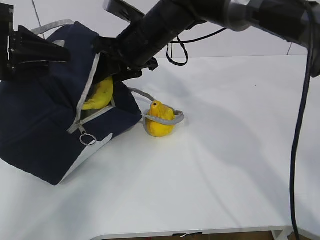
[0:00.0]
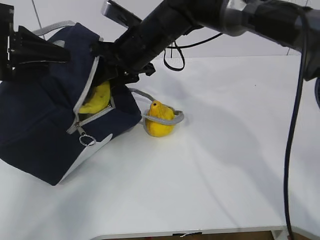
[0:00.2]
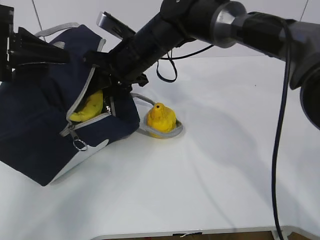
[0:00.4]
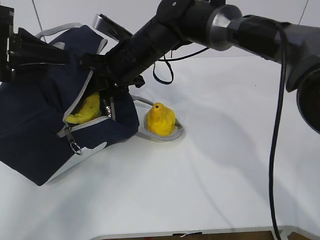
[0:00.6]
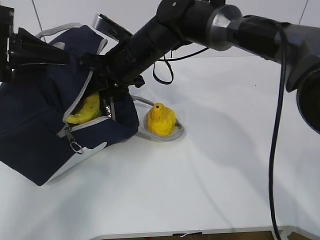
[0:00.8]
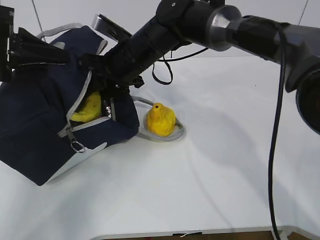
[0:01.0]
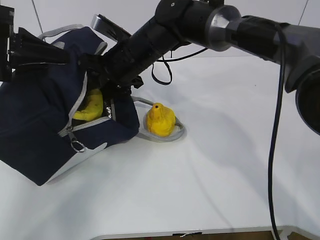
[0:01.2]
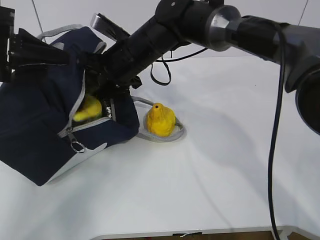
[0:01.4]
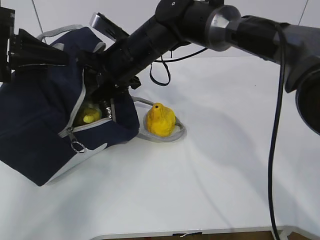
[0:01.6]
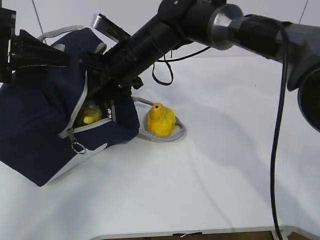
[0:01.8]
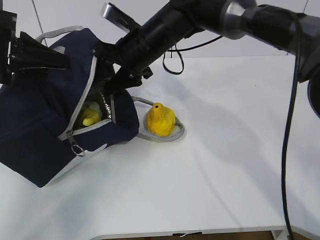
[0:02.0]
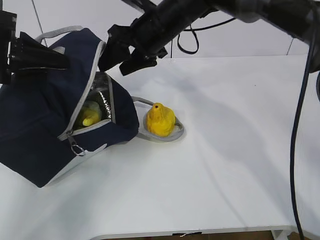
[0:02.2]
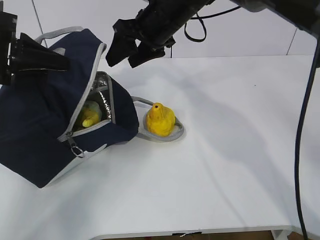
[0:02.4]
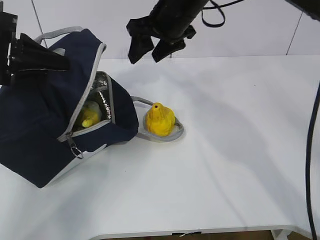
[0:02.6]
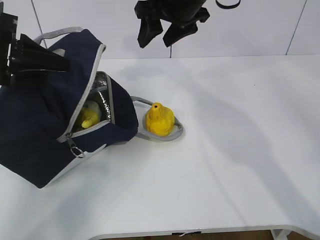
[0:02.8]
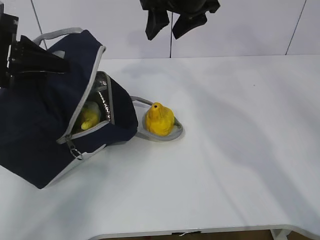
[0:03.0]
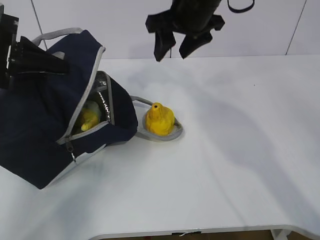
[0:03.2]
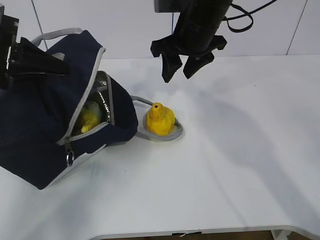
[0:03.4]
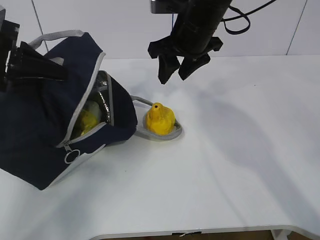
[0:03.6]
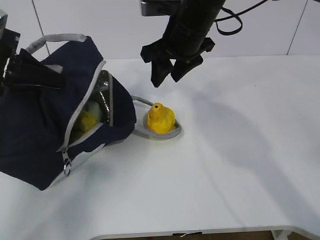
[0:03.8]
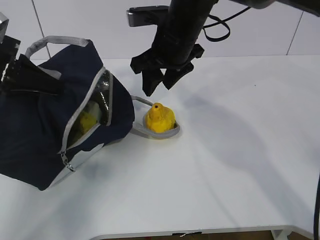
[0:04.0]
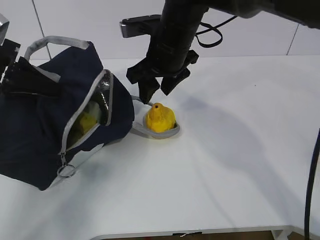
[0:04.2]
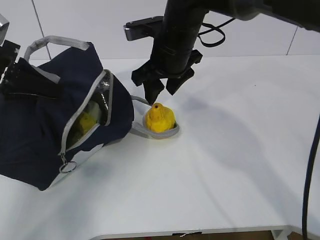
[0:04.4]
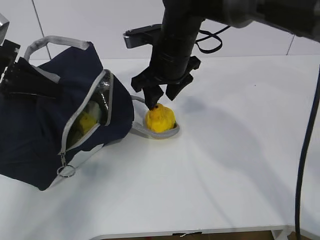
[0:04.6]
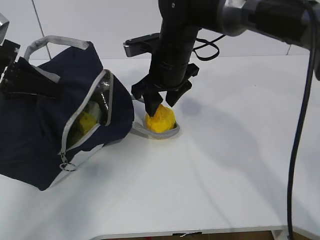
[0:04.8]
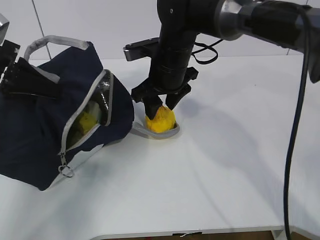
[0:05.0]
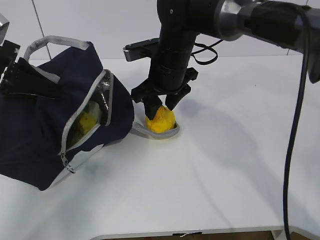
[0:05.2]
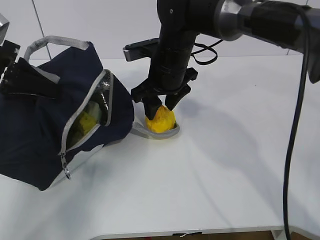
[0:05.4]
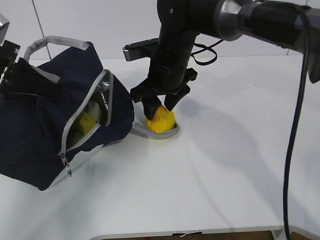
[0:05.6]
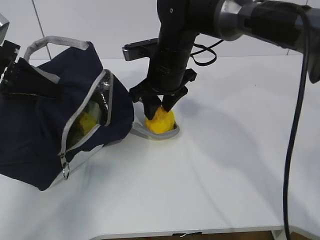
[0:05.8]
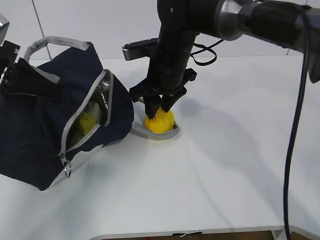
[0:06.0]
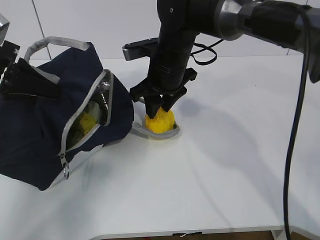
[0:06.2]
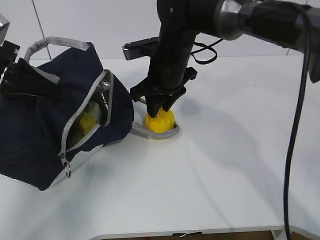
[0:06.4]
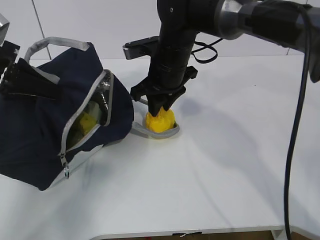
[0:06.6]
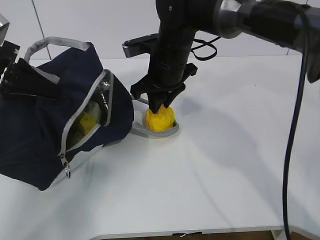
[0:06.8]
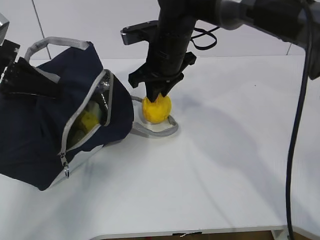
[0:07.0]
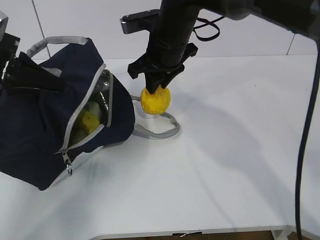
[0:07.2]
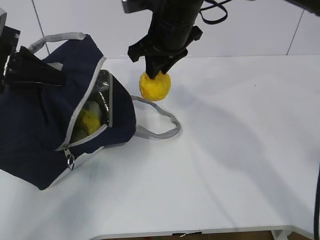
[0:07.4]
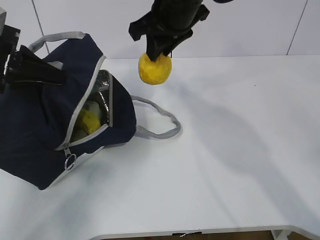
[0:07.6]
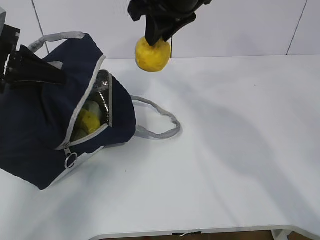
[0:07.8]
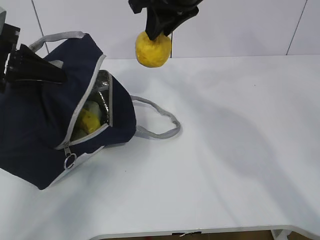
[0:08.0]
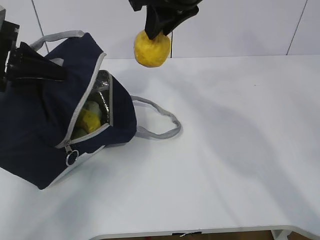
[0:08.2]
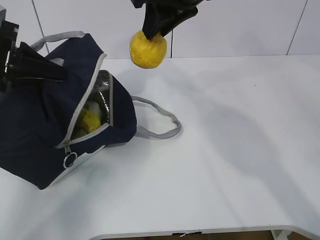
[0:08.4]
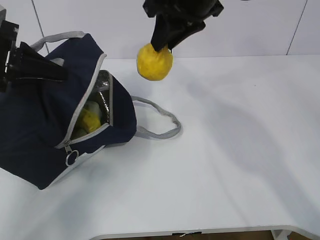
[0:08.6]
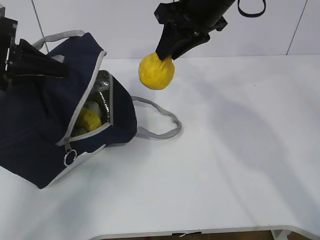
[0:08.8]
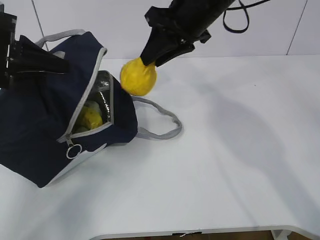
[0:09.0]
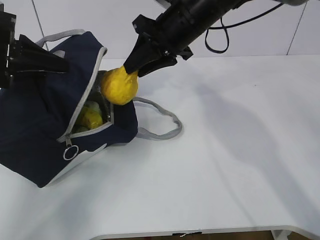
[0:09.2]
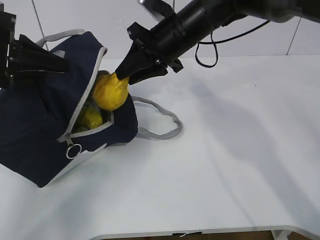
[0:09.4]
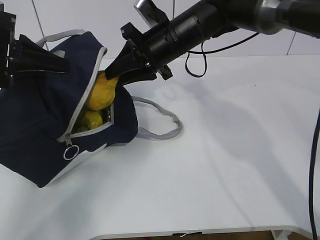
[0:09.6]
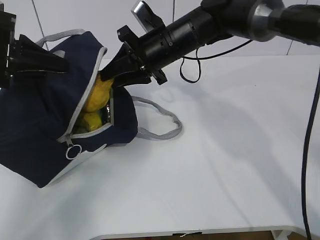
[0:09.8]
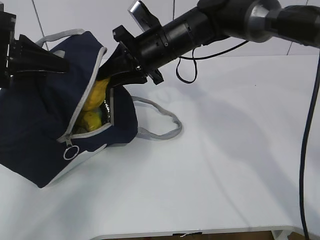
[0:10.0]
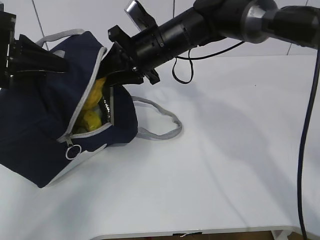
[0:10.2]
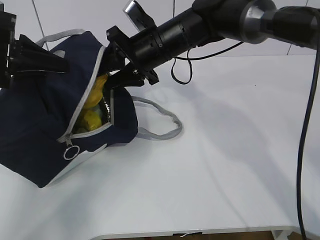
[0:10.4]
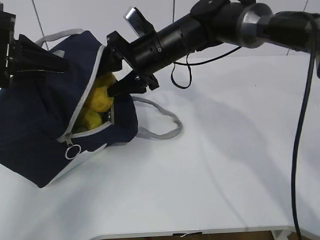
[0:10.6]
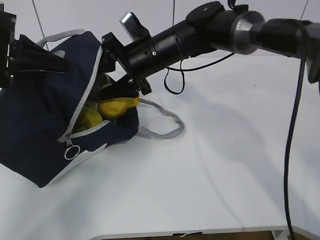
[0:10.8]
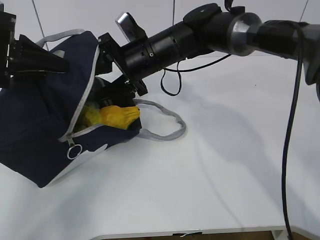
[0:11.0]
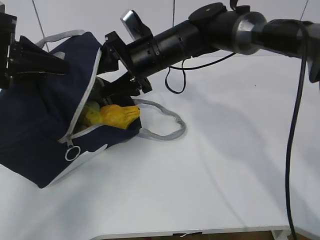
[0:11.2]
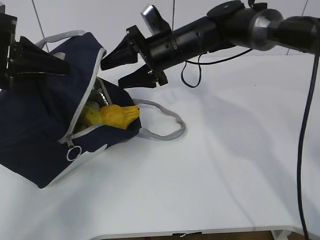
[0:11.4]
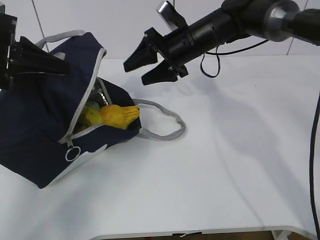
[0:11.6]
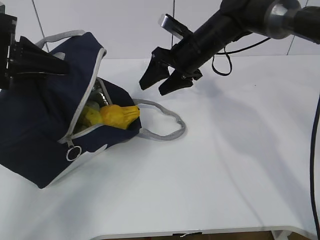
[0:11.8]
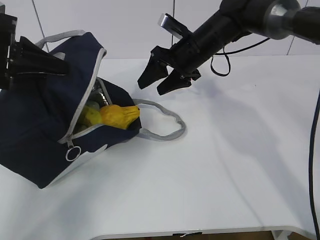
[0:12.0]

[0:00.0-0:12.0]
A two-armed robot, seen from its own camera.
Step, 0:03.8 to 0:06.4: Grab the lunch bag with your right hand.
Step, 0:06.6 to 0:08.8: Stand the lunch bag upright with your right hand.
0:00.0 to 0:01.6: The right gripper opens its fingers.
0:01.6 to 0:03.0: The right gripper moves upward and to the right, approximately 15 cm.
0:03.0 to 0:04.4: The right gripper goes about 10 cm downward.
0:04.4 to 0:06.0: There are only small adjustments of the grippers.
0:06.0 to 0:07.6: The right gripper is displaced upward by roughly 10 cm.
0:09.0 to 0:10.4: The right gripper goes approximately 10 cm downward and to the left.
0:10.4 to 0:12.0: The right gripper goes roughly 5 cm to the right.

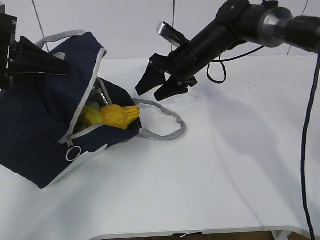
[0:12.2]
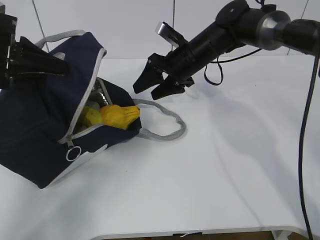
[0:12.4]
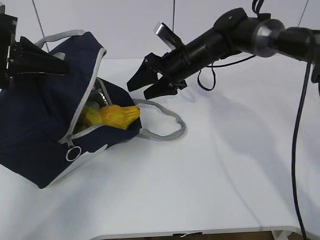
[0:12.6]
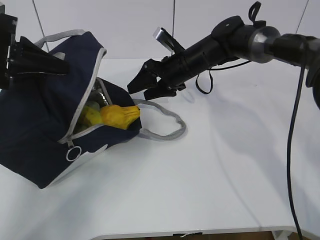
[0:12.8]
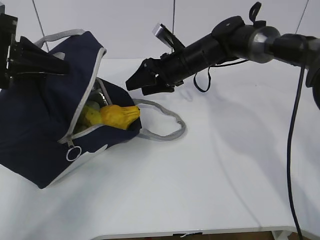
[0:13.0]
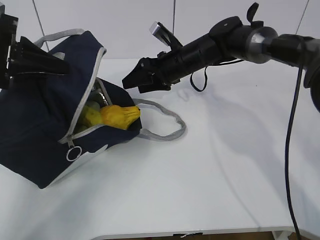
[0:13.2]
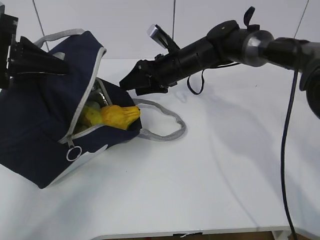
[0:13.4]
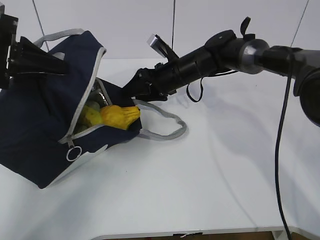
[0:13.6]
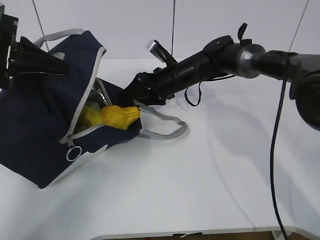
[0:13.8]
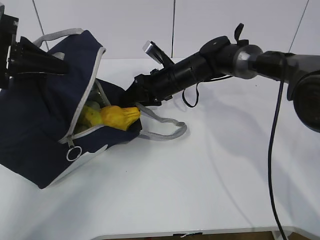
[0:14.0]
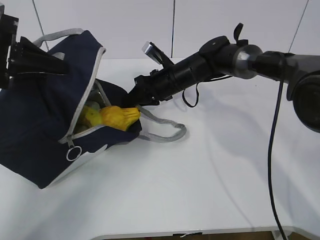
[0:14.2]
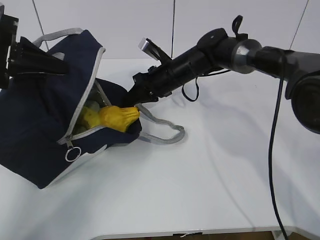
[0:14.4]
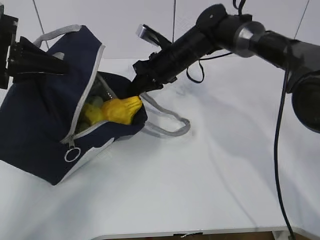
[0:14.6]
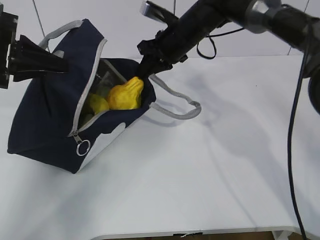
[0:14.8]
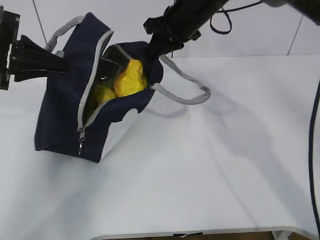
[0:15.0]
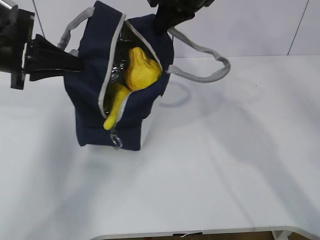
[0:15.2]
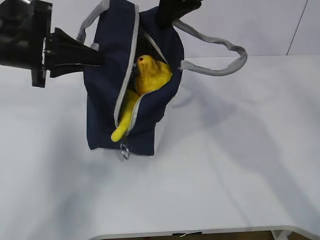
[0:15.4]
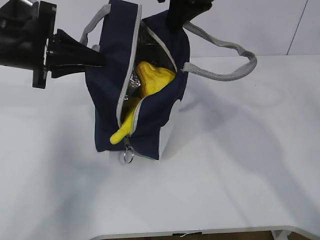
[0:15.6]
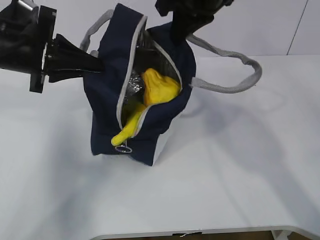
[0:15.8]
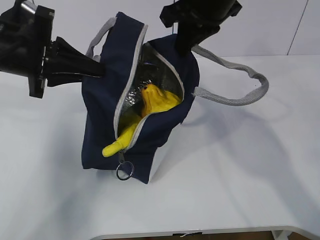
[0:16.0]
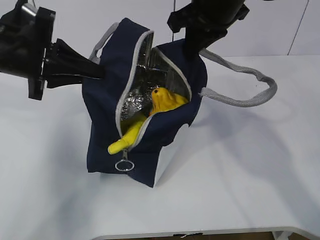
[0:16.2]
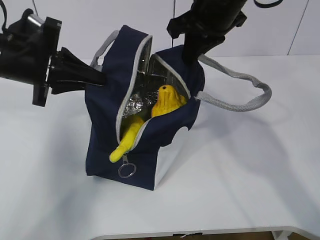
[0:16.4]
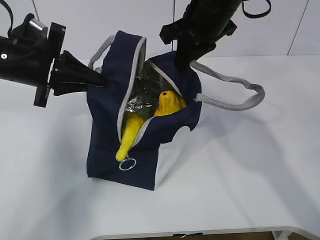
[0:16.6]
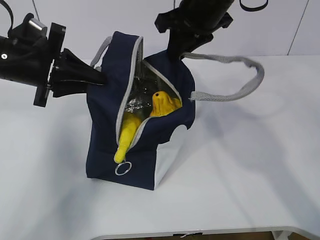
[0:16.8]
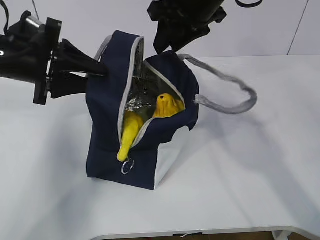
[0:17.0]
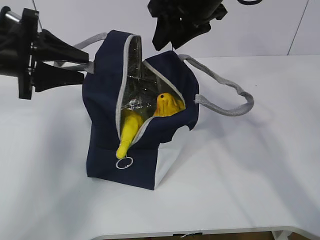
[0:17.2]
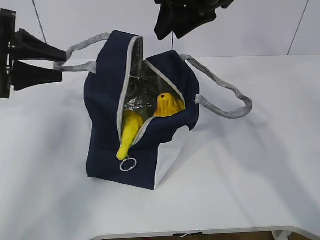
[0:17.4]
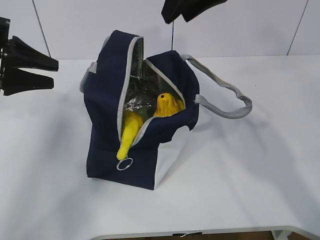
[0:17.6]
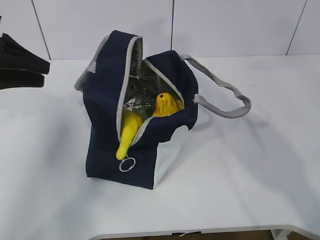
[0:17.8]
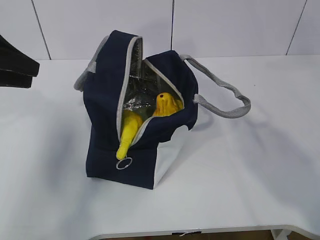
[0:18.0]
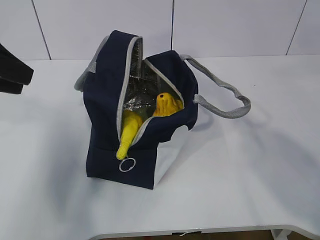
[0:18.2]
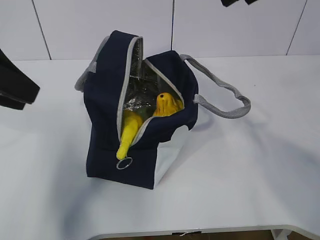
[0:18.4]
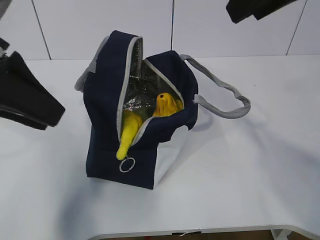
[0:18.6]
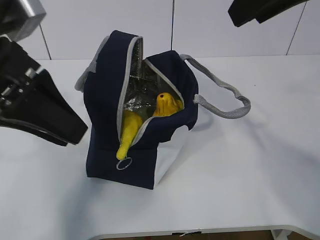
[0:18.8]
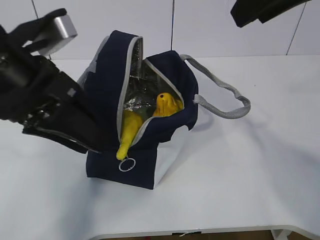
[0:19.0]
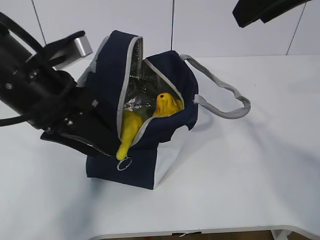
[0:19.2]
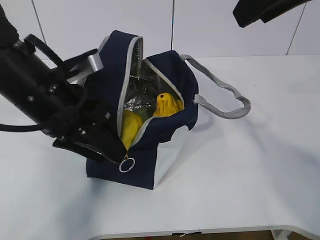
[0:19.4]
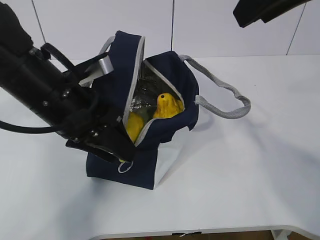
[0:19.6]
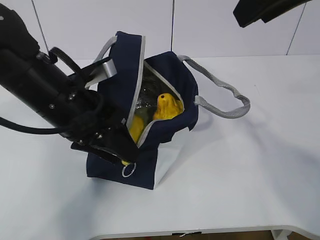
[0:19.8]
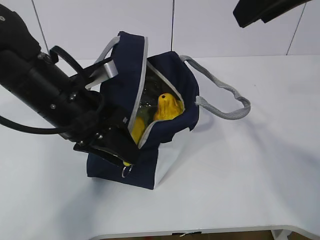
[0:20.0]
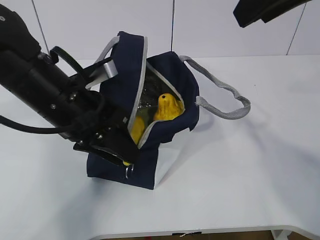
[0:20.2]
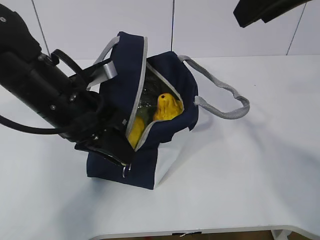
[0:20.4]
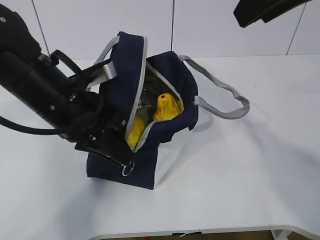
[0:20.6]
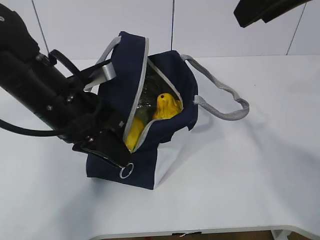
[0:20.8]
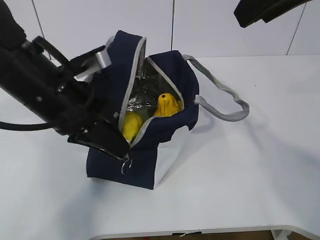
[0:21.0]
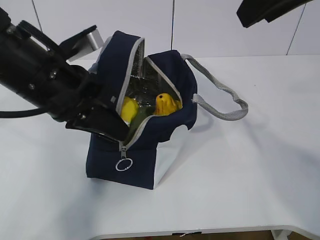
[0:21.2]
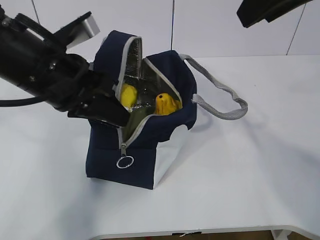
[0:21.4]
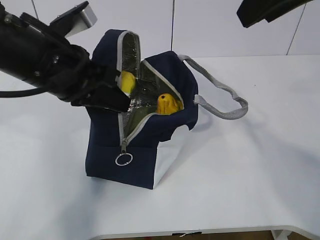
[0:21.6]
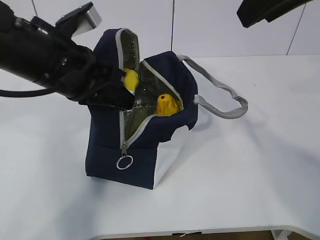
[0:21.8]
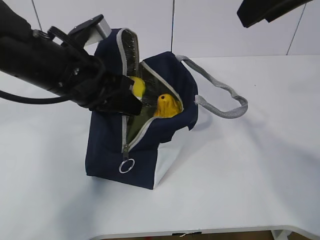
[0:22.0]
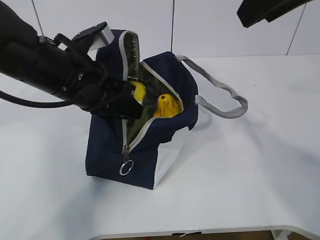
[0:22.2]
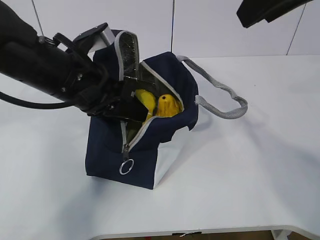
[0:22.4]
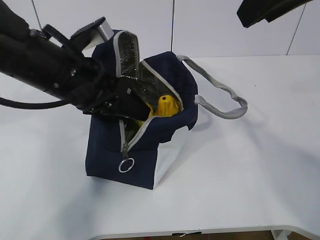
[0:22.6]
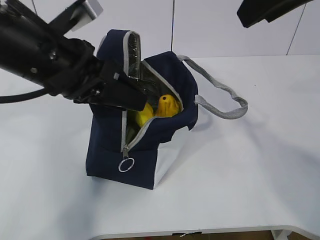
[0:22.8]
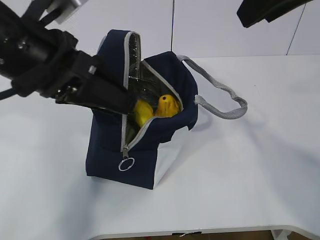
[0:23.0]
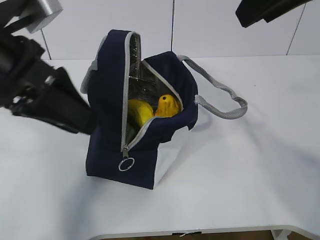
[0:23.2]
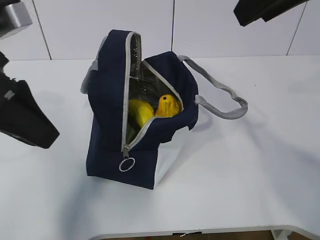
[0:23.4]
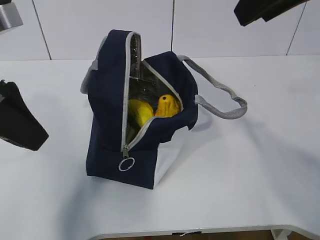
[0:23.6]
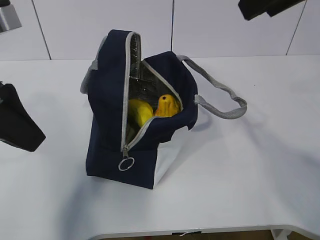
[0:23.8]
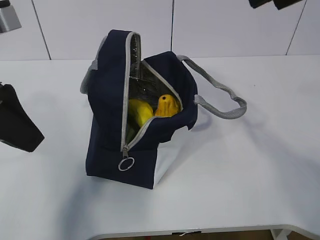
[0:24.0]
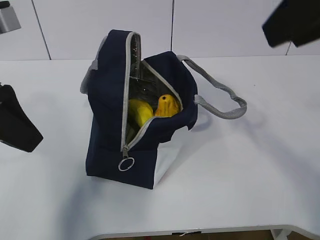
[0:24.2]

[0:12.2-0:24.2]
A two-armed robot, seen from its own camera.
0:12.2 to 0:13.8: The right gripper heads downward, covering about 5 cm.
0:13.8 to 0:15.2: The right gripper travels upward by some 20 cm, and closes.
0:15.2 to 0:16.6: The right gripper moves roughly 5 cm.
0:16.6 to 0:18.2: The left gripper travels upward, backward and to the left by roughly 10 cm, and opens; the right gripper moves upward and backward, about 15 cm, and opens up.
0:18.2 to 0:19.8: The left gripper is displaced to the right and downward by roughly 20 cm.
0:19.8 to 0:21.2: The left gripper closes.
0:21.2 to 0:22.6: The left gripper opens up.
0:22.6 to 0:24.2: The left gripper shifts roughly 15 cm to the left, backward and upward, while the right gripper moves backward, approximately 5 cm.
